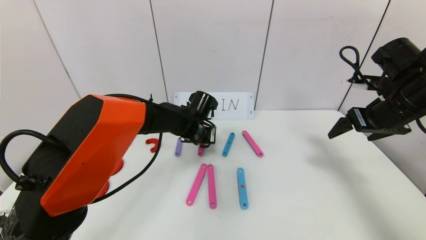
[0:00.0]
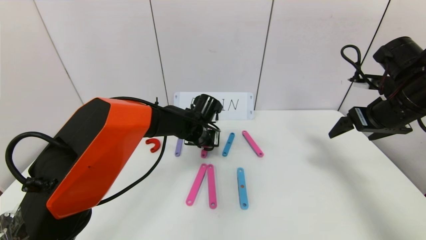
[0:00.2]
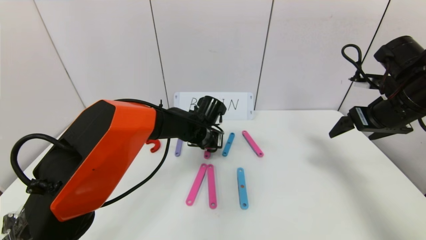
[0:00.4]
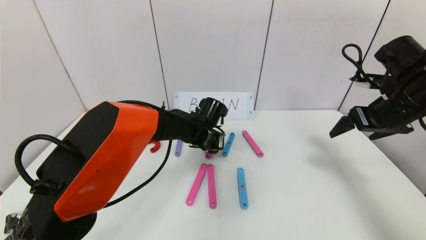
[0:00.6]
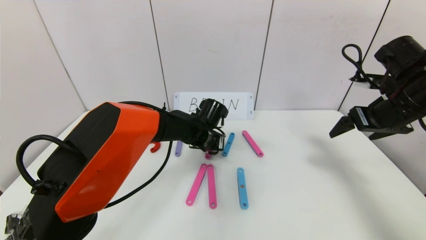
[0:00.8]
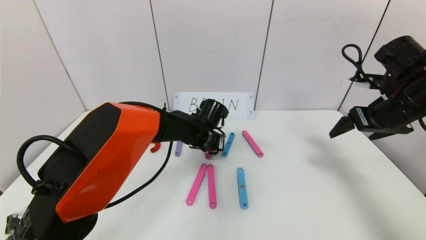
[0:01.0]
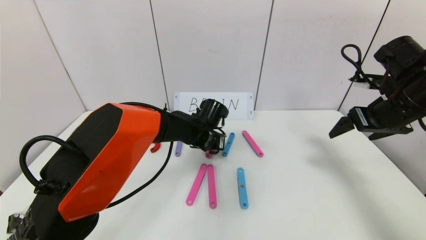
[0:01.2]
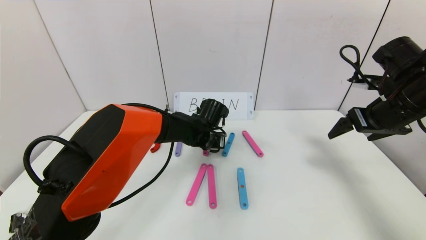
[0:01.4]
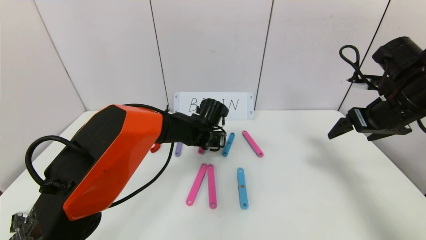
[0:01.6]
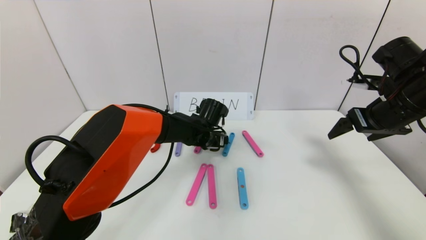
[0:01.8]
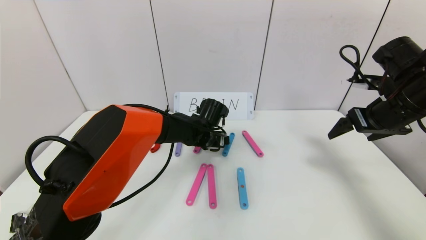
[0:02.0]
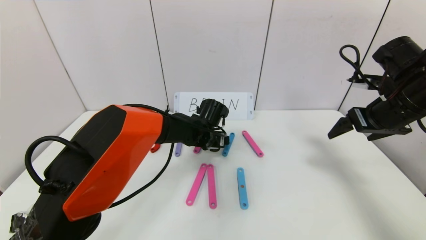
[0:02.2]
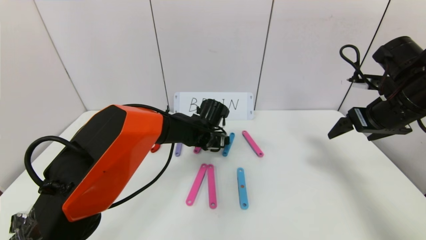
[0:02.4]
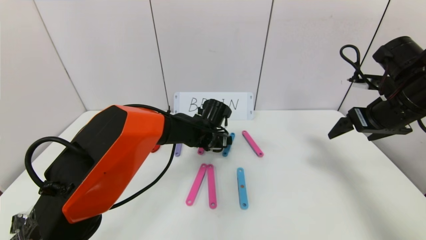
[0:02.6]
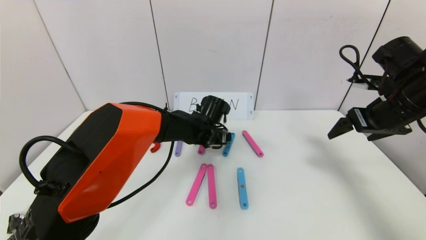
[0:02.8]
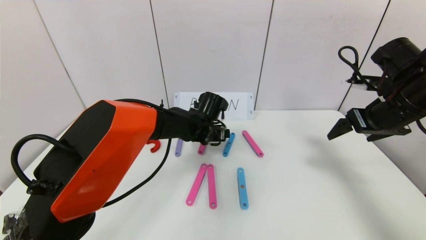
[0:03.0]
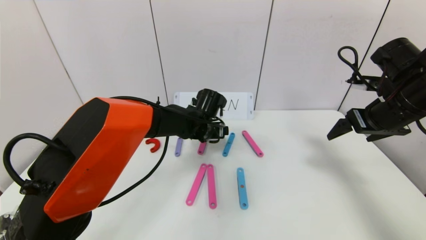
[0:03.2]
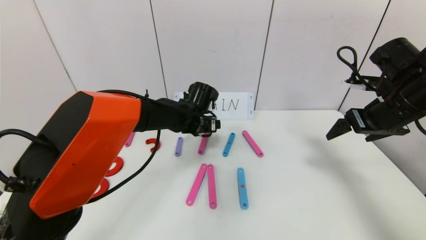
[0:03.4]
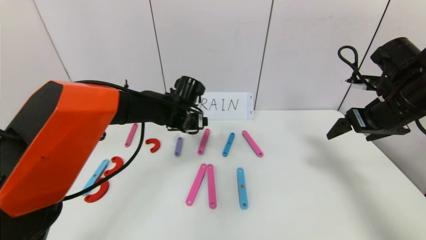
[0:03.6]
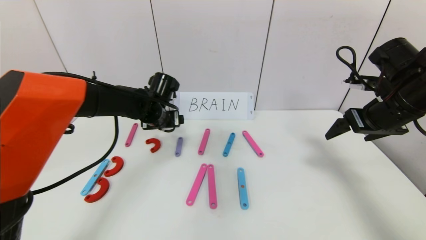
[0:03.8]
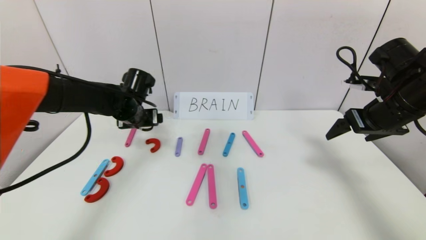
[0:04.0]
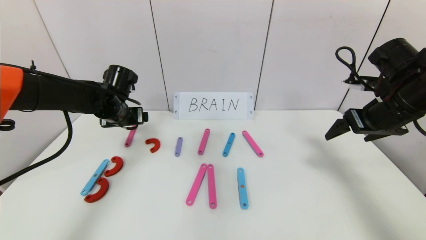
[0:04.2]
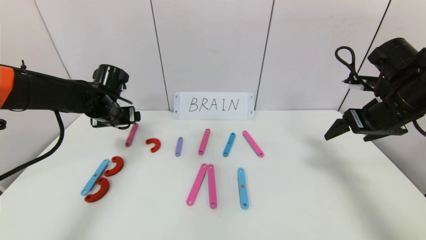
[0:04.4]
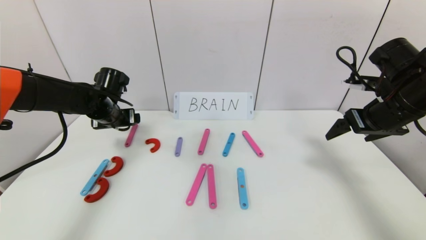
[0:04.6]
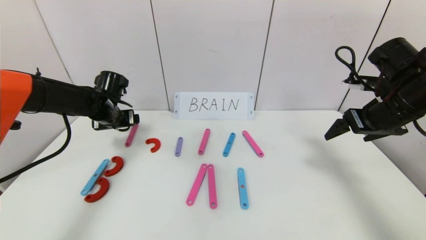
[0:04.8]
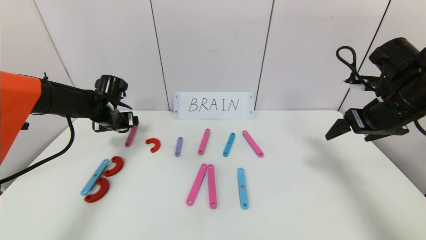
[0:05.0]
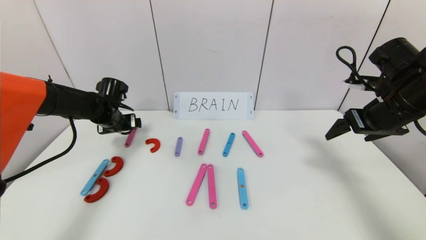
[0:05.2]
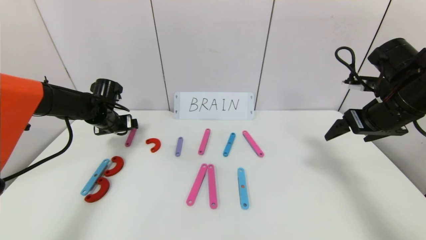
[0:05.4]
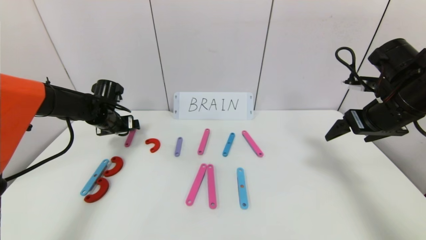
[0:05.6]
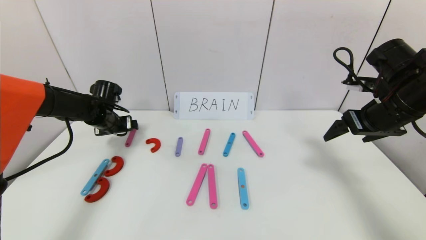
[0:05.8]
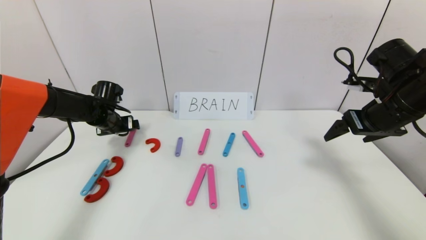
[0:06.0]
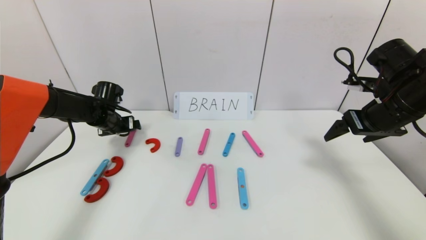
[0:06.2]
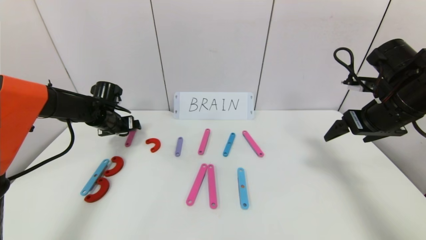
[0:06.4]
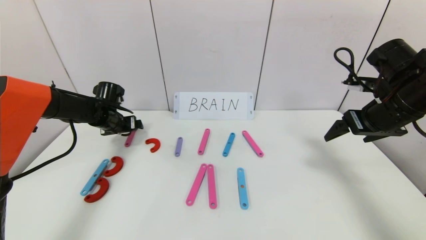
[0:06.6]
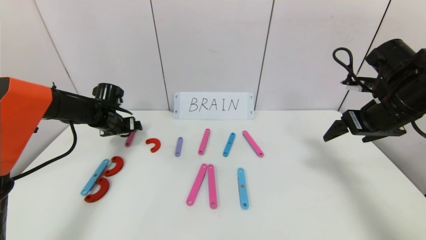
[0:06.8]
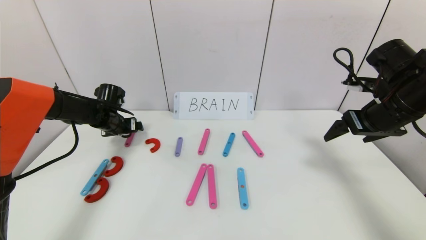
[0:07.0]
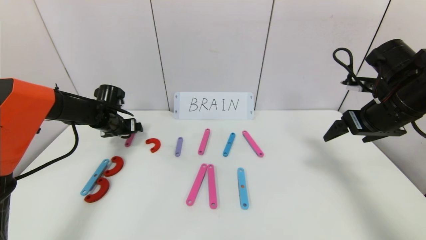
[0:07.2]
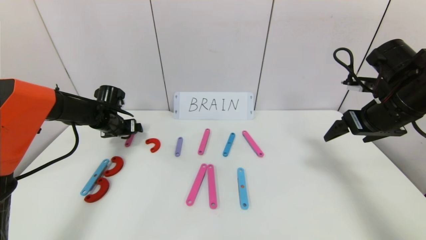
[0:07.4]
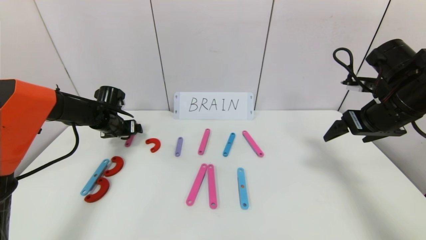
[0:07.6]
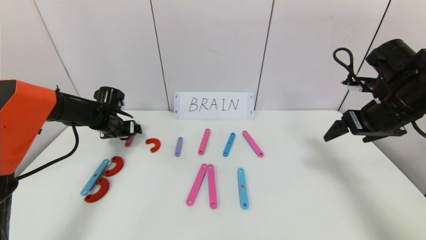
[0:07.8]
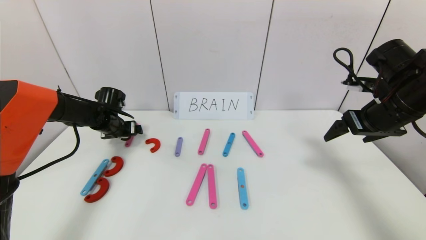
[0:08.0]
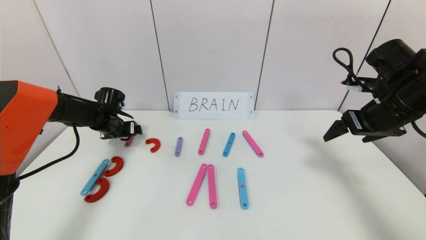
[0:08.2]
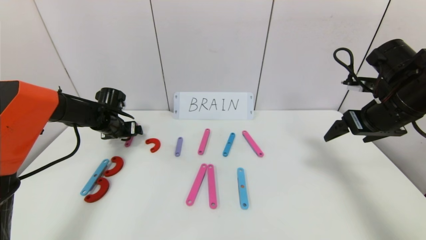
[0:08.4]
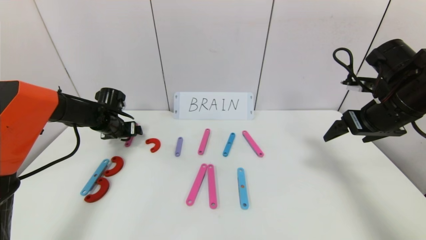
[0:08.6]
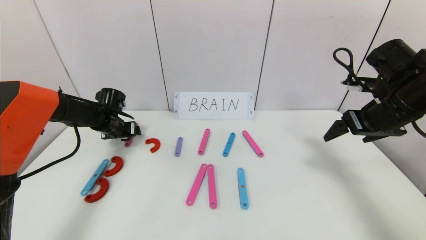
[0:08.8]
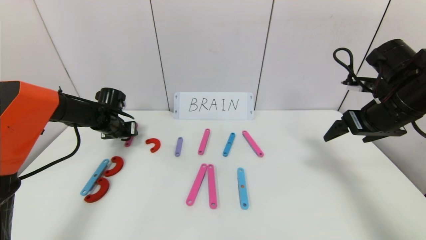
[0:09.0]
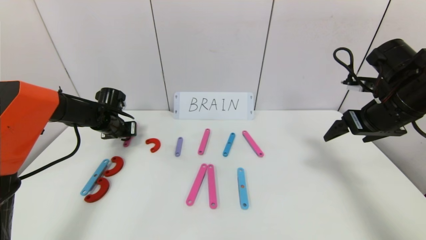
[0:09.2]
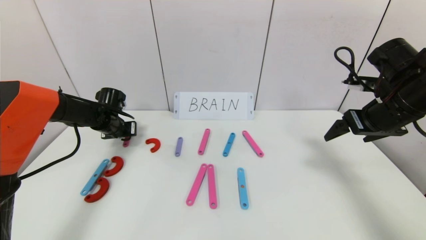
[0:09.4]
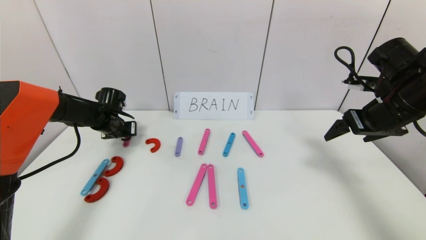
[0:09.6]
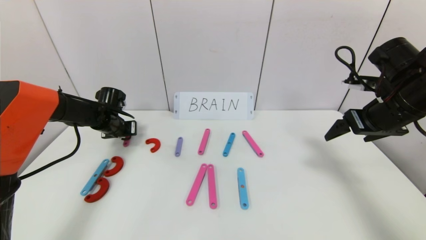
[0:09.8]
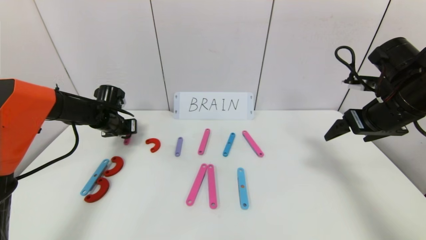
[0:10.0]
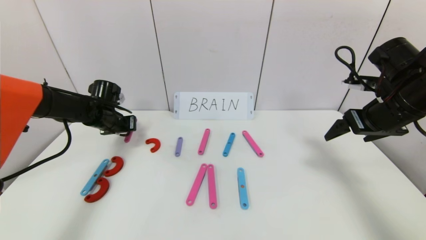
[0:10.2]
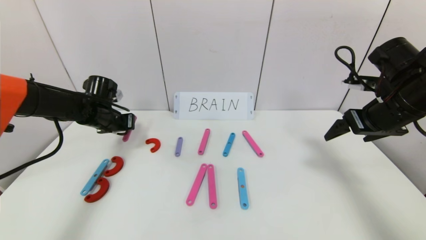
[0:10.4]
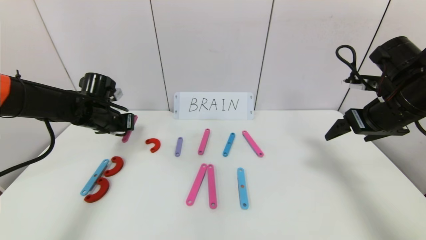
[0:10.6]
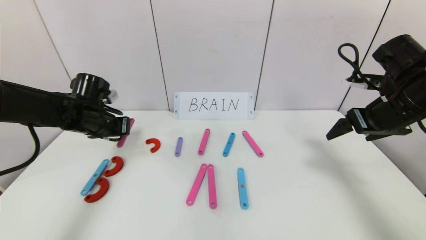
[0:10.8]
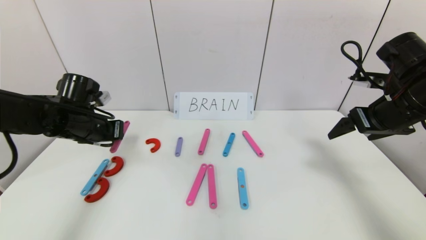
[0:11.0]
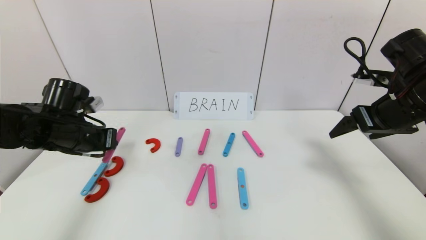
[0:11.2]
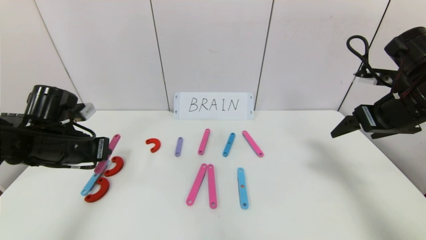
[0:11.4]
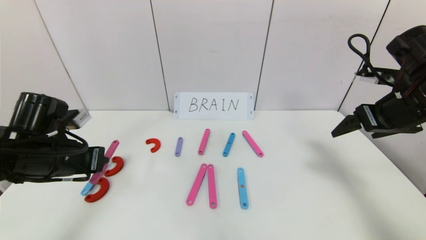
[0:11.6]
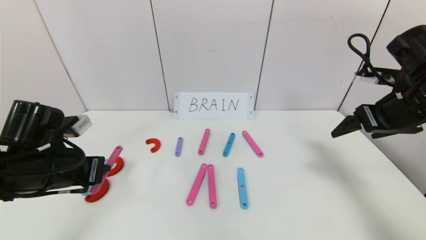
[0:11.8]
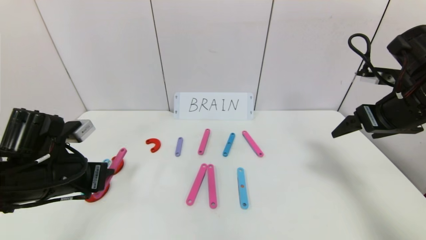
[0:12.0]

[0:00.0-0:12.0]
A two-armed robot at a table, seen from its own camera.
Task of the whole recording: rearrange the word baai as brain.
Step, 0:00.0 to 0:02.8: Disassemble the second character A.
0:00.0 to 0:01.6: The left gripper opens.
0:01.6 to 0:03.0: The grippers stay close to where they were, moving slightly.
0:03.0 to 0:04.4: The left gripper shifts about 25 cm to the left.
0:04.4 to 0:06.0: The left gripper moves downward, roughly 5 cm.
0:06.0 to 0:07.6: The grippers move only a little.
0:07.6 to 0:09.0: The left gripper closes up.
0:09.0 to 0:10.4: The left gripper shifts by some 5 cm, and closes up.
0:10.4 to 0:12.0: The left gripper is displaced backward by some 20 cm.

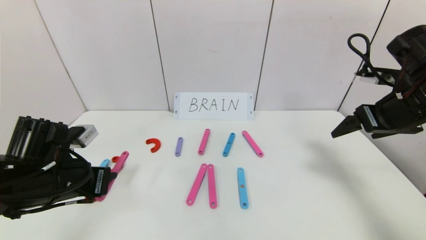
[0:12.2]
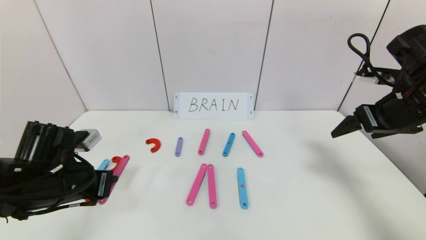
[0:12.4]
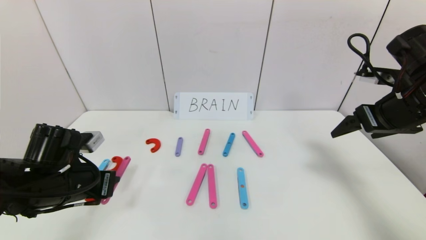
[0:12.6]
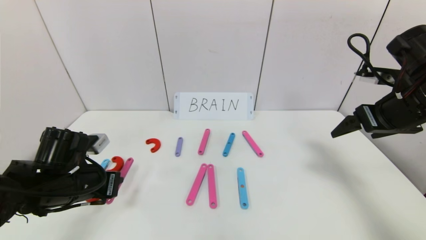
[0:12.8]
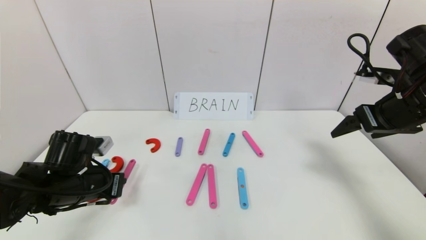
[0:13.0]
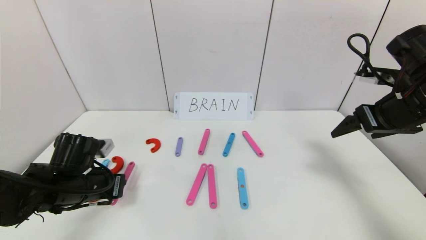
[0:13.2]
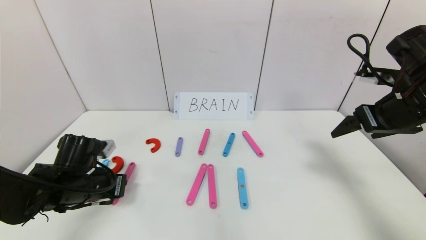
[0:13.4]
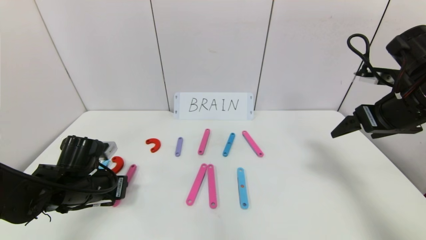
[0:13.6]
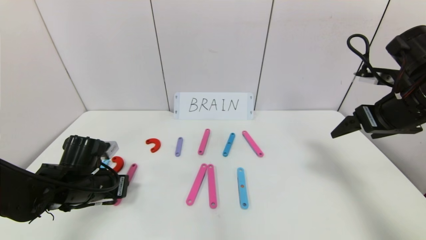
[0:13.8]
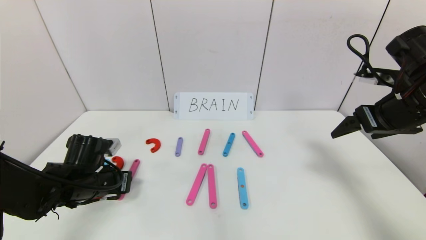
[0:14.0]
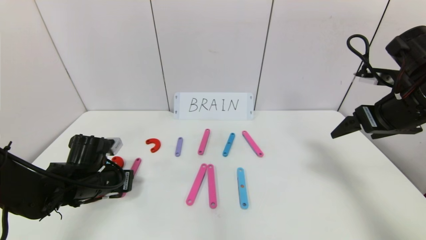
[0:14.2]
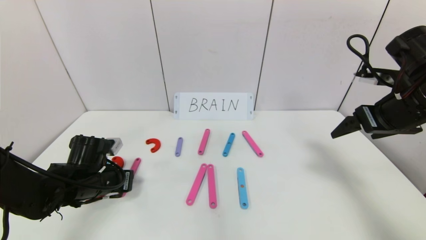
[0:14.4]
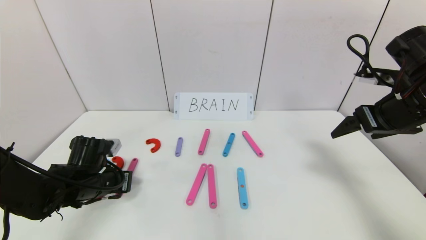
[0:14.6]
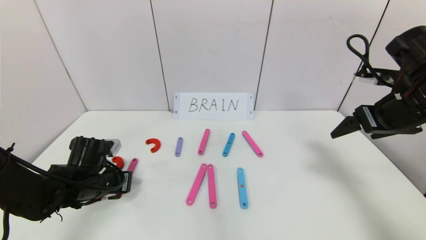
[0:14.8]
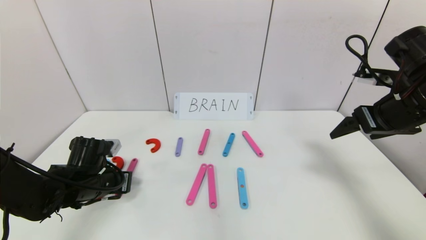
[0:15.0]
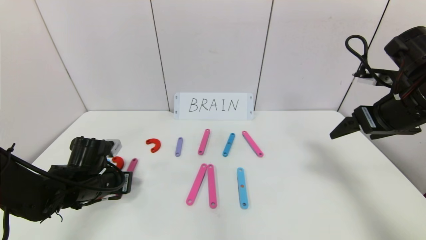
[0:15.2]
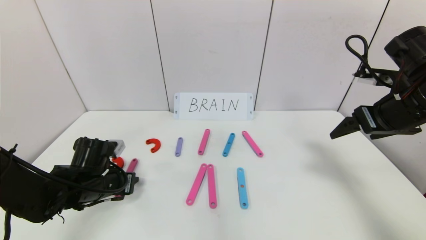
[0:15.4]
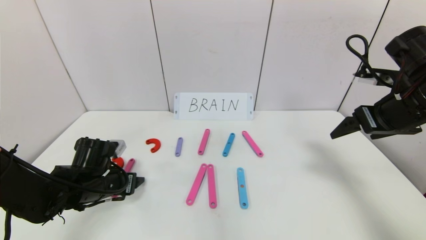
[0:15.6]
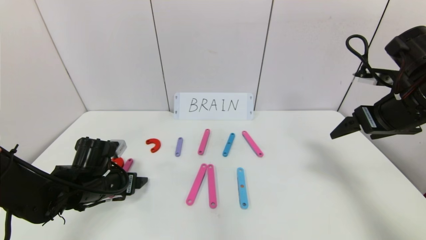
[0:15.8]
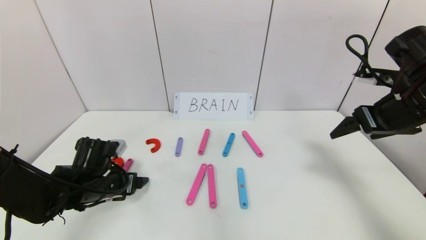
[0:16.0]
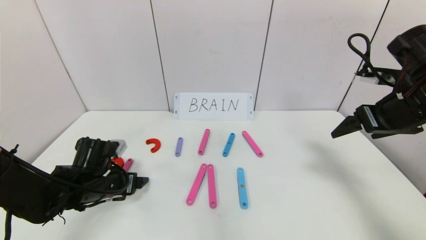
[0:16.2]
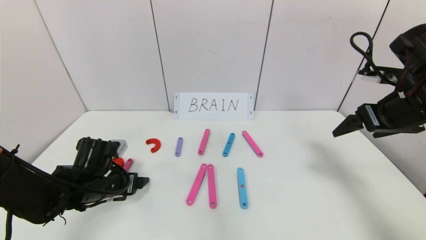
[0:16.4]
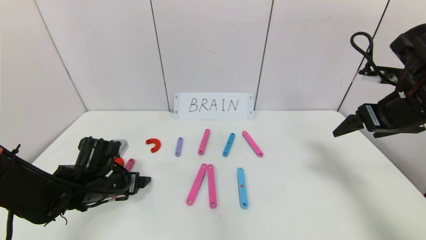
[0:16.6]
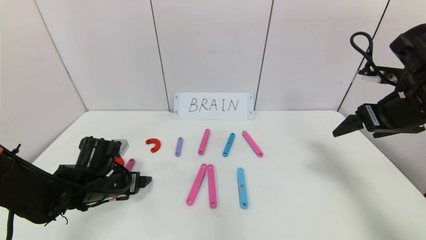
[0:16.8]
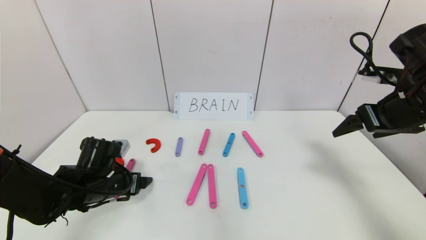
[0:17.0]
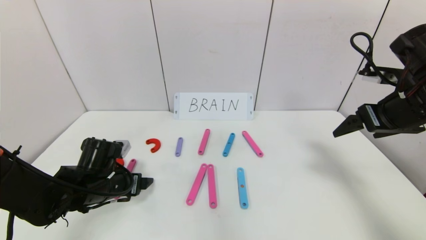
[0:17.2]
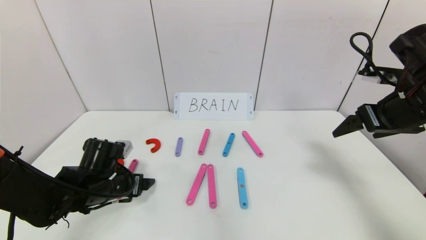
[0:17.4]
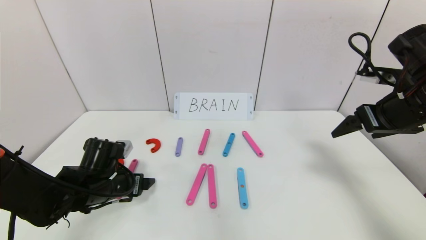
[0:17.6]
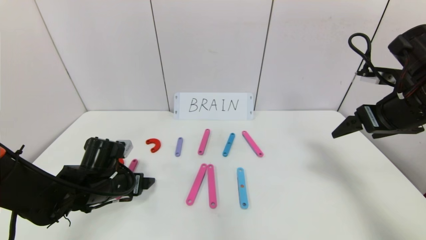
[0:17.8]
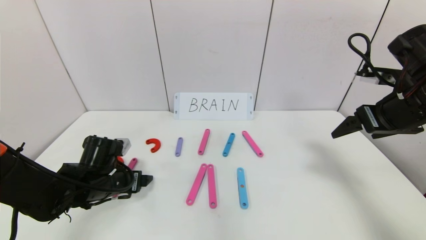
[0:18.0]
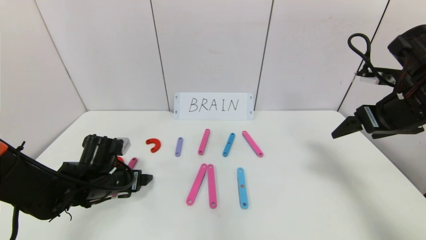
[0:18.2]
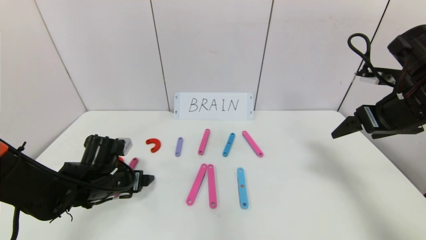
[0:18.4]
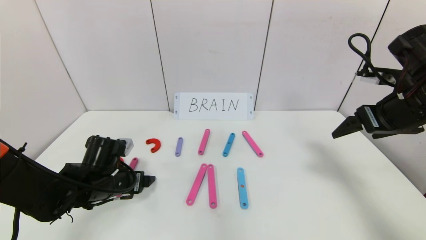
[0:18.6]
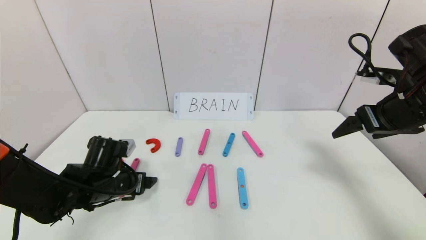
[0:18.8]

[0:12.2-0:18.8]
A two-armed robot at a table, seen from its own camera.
Task of the whole recording: rearrange the word baai as brain.
0:12.2 to 0:13.8: The left gripper goes approximately 5 cm downward.
0:13.8 to 0:15.4: The left gripper opens up.
0:15.4 to 0:17.2: The left gripper opens.
0:17.2 to 0:18.8: Both grippers stay put.
